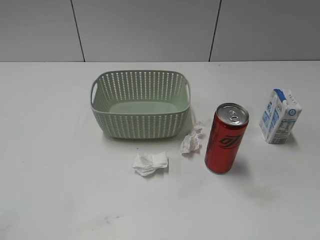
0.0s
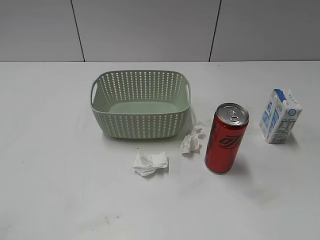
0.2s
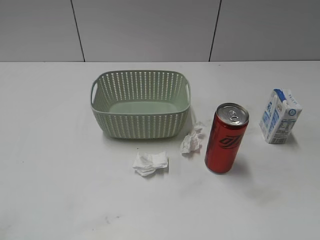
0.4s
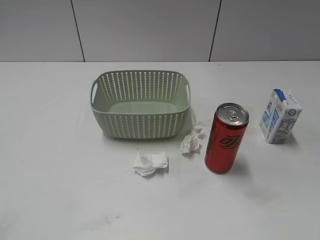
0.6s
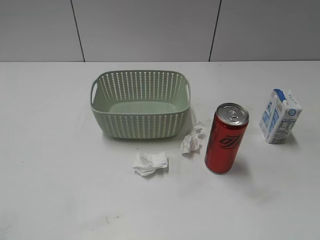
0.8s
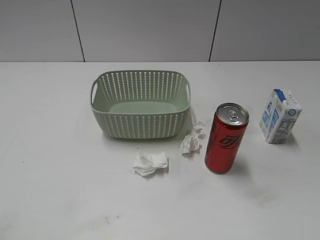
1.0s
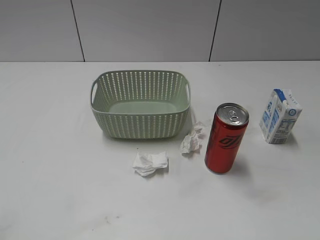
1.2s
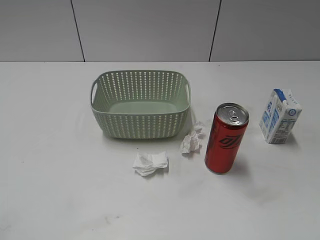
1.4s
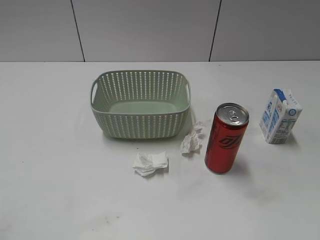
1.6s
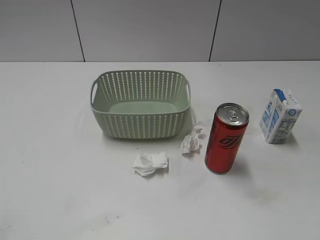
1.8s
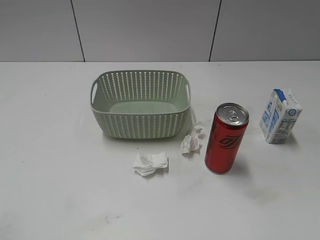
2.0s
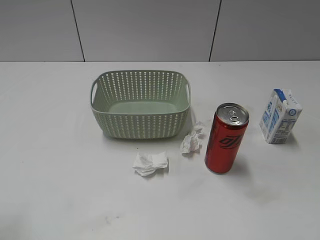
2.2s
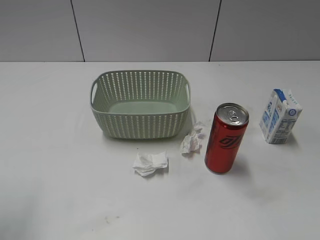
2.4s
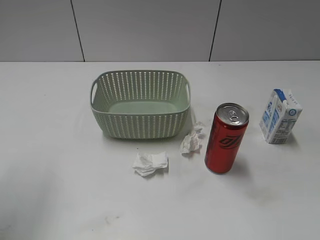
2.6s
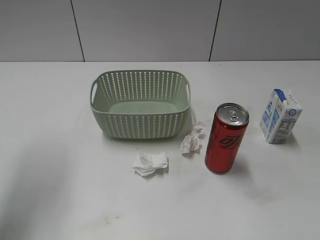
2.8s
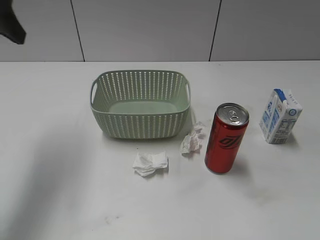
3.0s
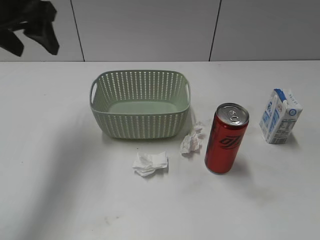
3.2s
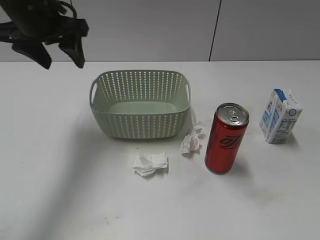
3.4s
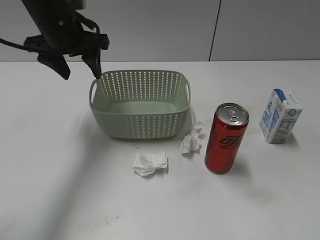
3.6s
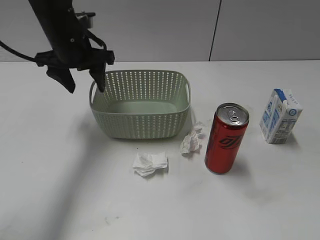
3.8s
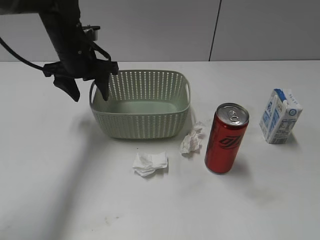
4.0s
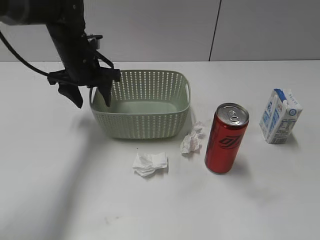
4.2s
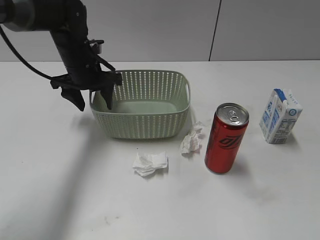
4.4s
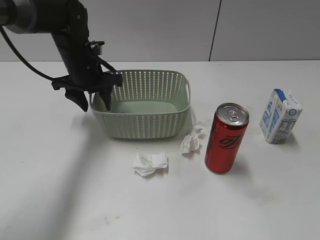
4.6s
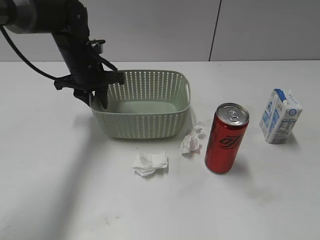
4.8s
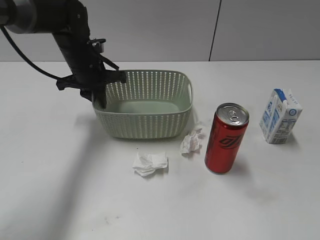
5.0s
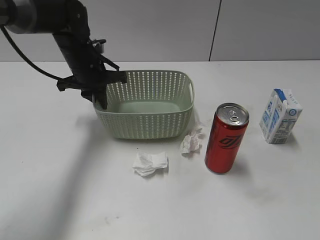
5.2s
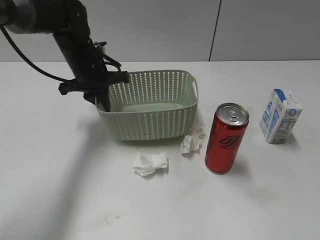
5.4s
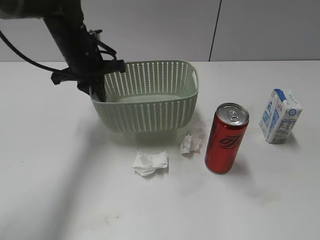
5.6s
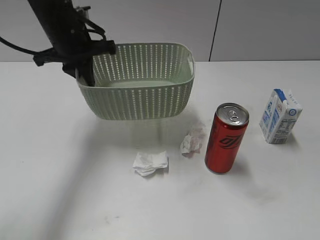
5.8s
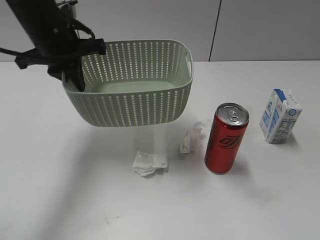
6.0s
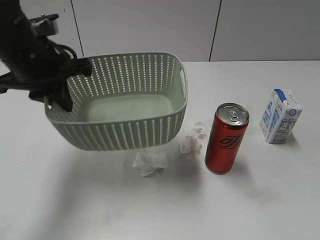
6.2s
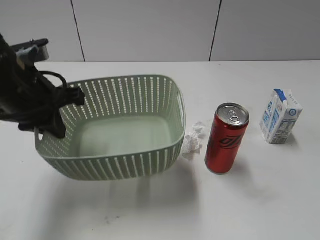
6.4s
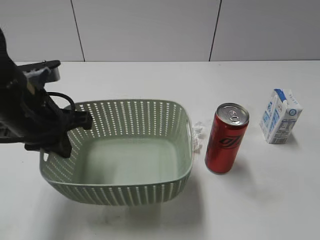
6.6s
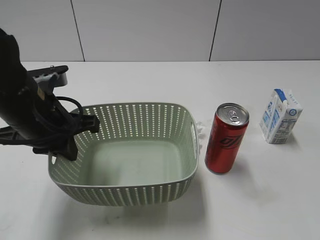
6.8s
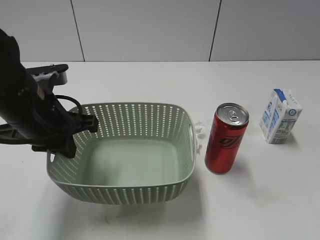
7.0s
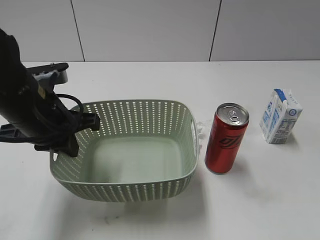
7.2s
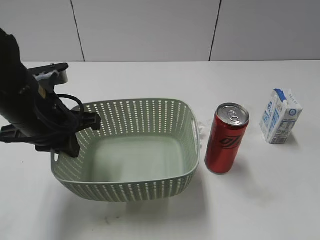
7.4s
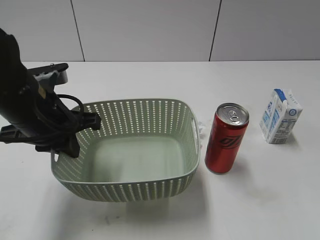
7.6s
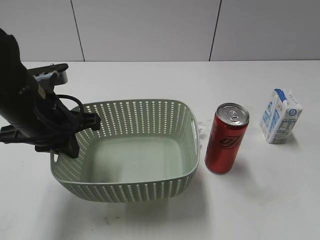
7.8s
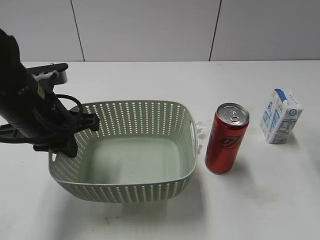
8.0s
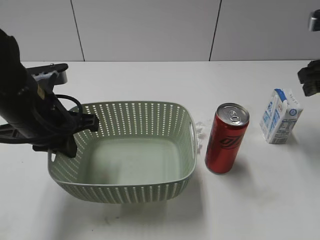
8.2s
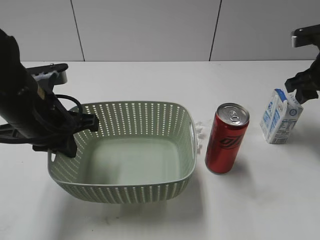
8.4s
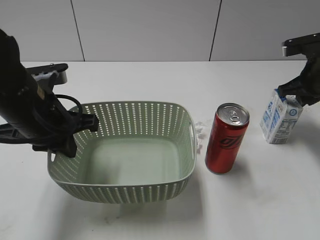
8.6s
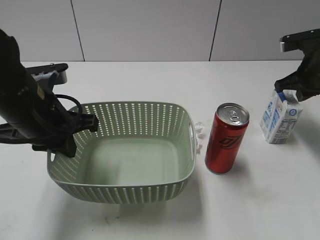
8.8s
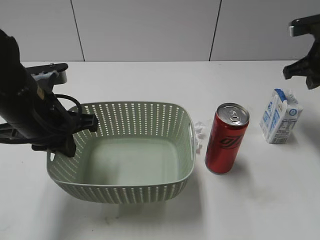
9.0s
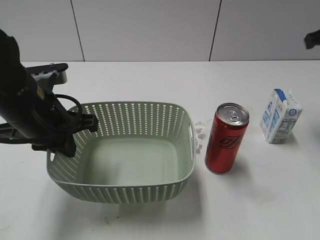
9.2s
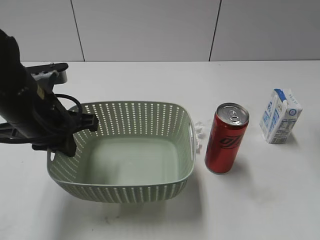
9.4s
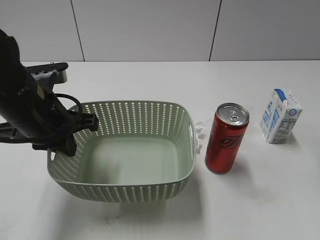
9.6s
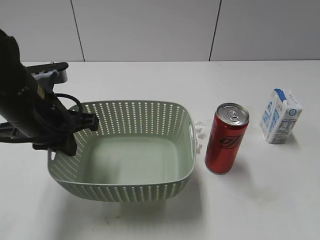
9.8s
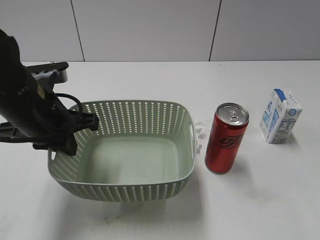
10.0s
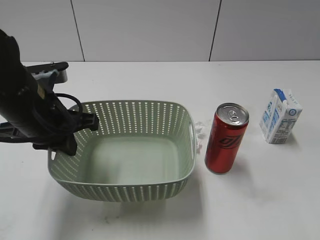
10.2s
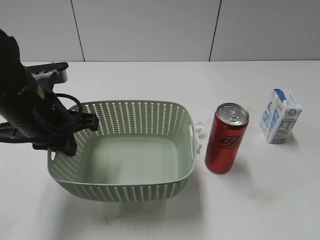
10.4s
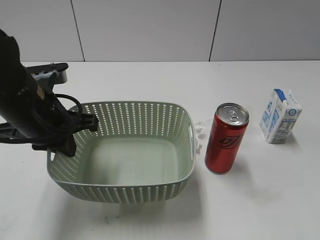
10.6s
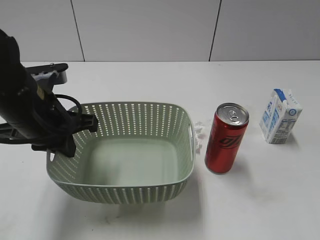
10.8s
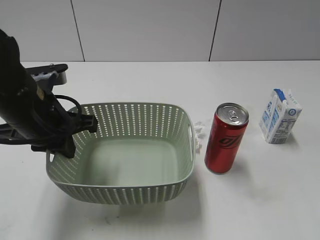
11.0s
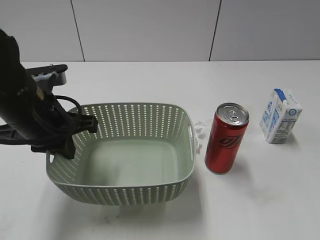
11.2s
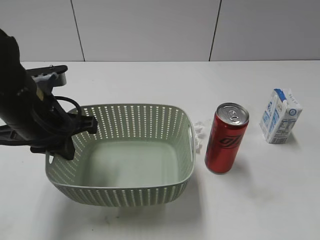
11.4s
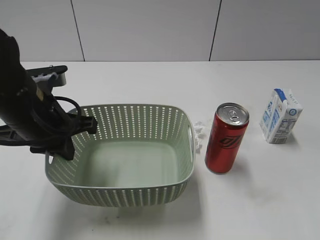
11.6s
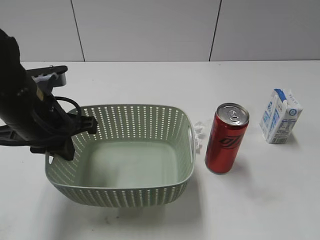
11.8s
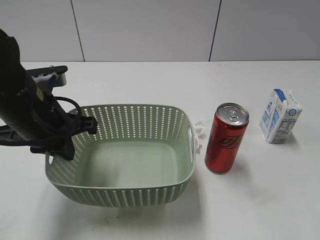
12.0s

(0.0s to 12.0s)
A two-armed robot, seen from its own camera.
Step, 3.0s - 5.2s: Grasp the basket with left gripper.
Step, 5.4s - 7.0s: Lift the basket with left gripper.
1.6s - 3.0s: The left gripper moves forward, roughly 30 cm.
3.0s - 4.4s: The left gripper moves downward, forward and to the right, about 25 cm.
4.4s - 6.0s: The left gripper heads upward and backward, covering approximately 10 cm, and closes its fingers.
6.0s - 7.6s: The right gripper travels forward and upward by some 15 cm, while the left gripper heads backward and downward, covering roughly 15 cm.
7.6s - 9.0s: The right gripper heads forward and downward, covering roughly 30 cm, and closes its fingers.
9.0s - 10.4s: The right gripper moves backward, roughly 35 cm, and opens up.
10.4s - 12.0s: The right gripper changes place by about 5 cm.

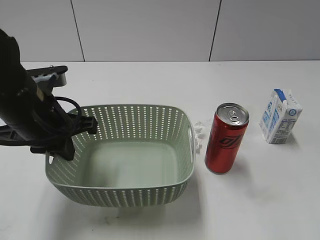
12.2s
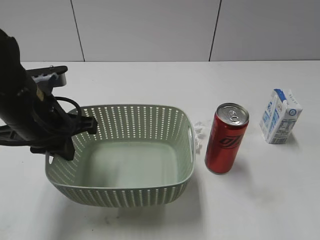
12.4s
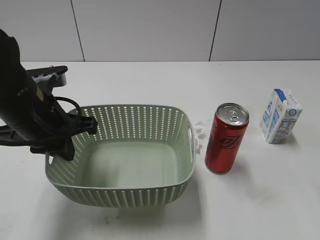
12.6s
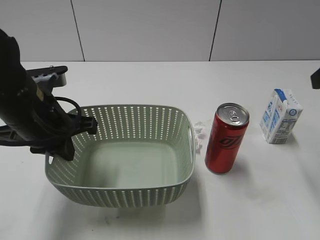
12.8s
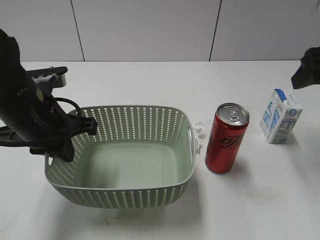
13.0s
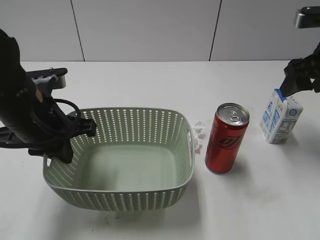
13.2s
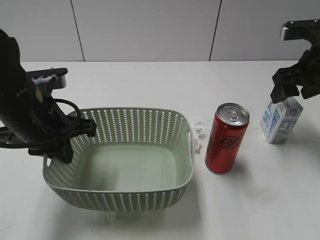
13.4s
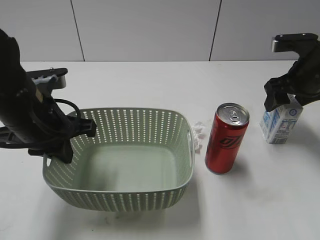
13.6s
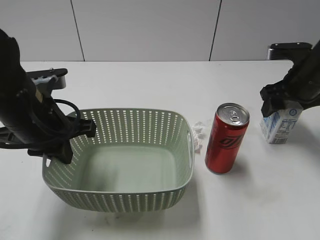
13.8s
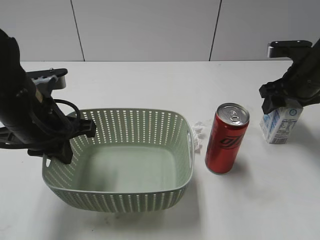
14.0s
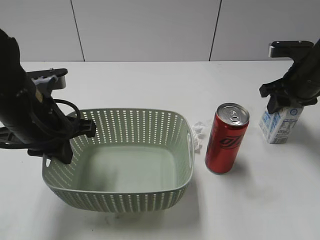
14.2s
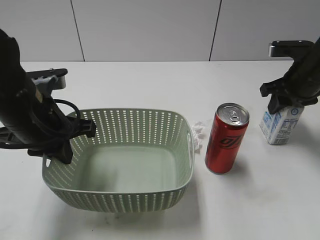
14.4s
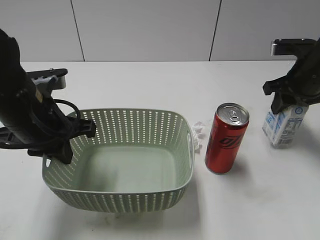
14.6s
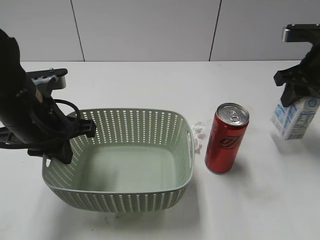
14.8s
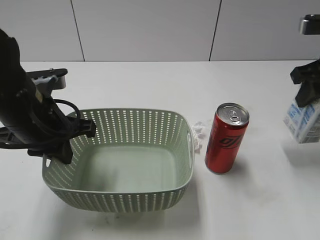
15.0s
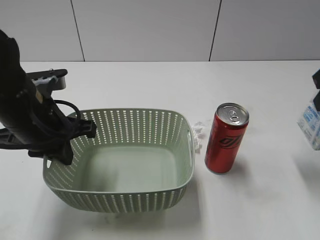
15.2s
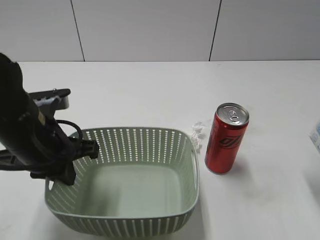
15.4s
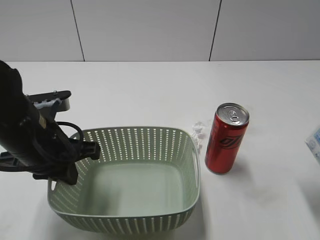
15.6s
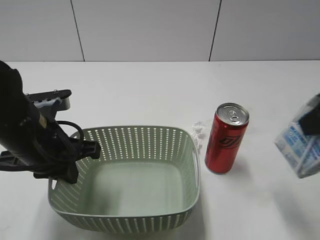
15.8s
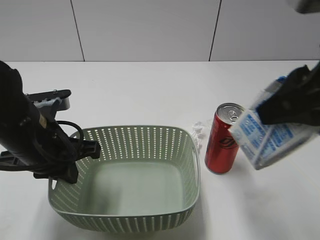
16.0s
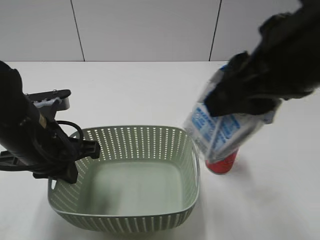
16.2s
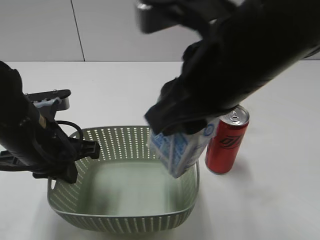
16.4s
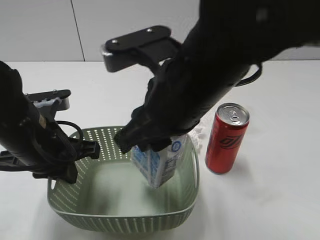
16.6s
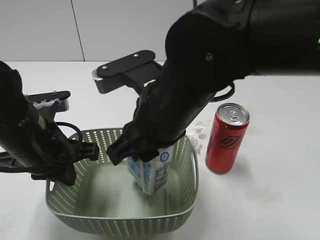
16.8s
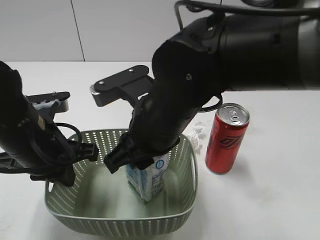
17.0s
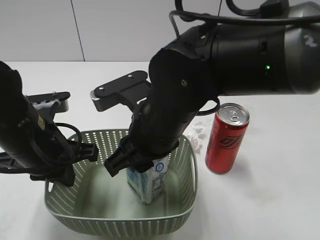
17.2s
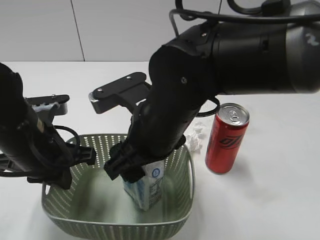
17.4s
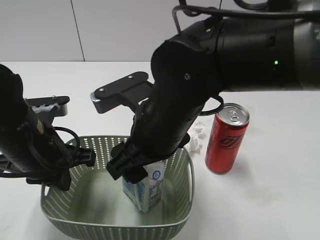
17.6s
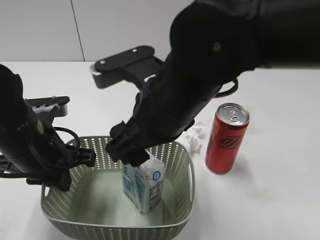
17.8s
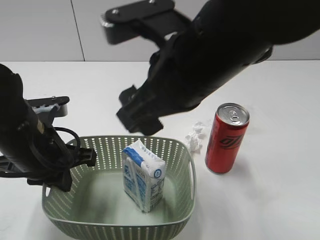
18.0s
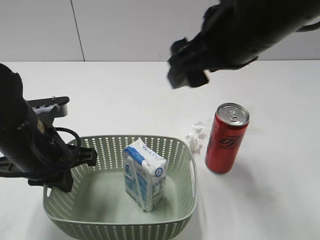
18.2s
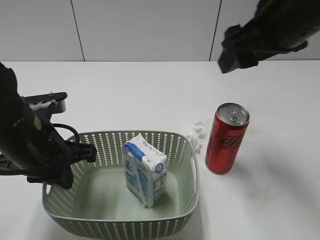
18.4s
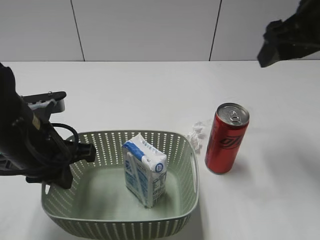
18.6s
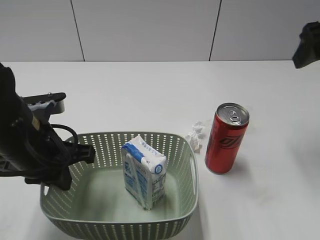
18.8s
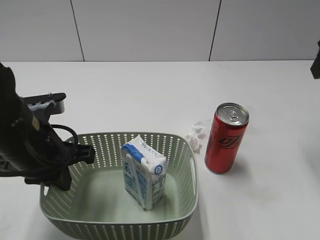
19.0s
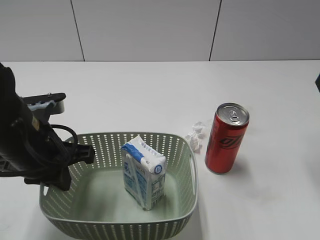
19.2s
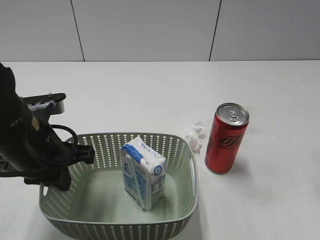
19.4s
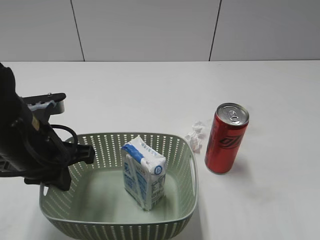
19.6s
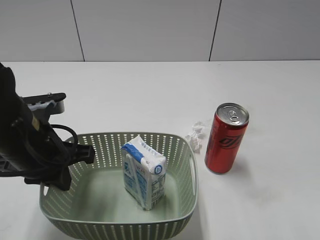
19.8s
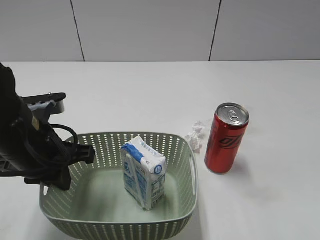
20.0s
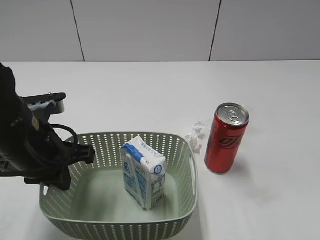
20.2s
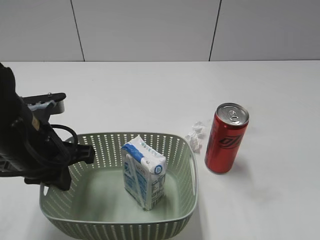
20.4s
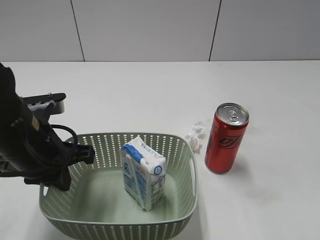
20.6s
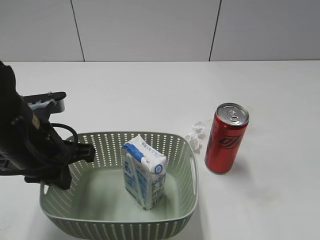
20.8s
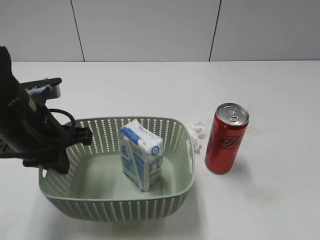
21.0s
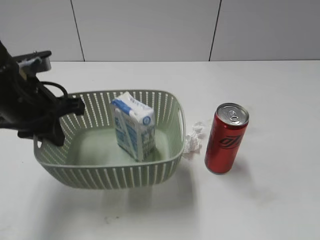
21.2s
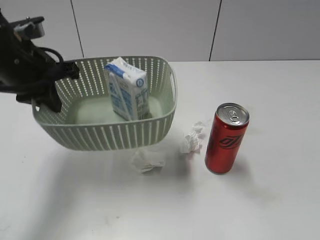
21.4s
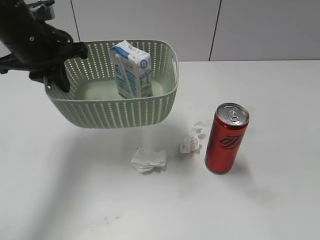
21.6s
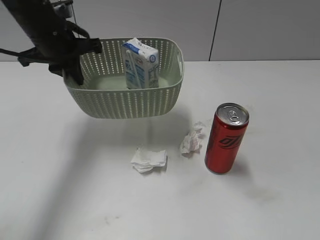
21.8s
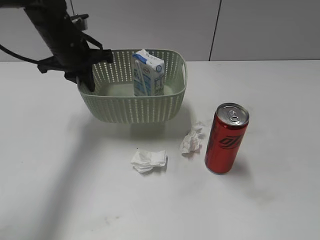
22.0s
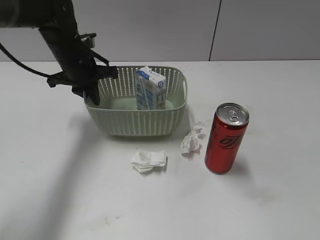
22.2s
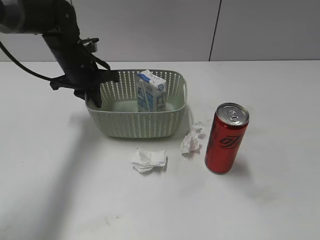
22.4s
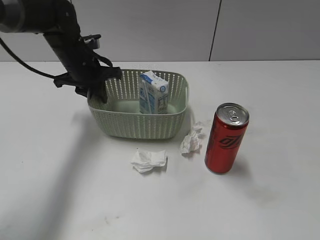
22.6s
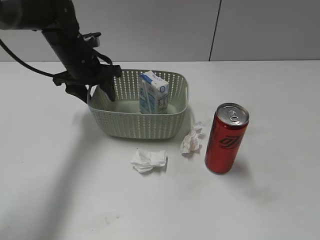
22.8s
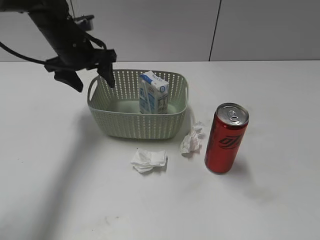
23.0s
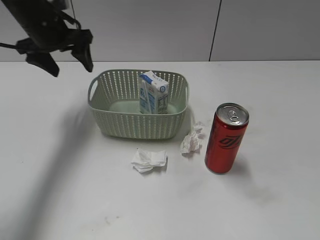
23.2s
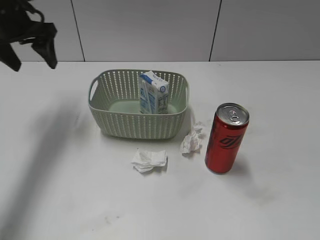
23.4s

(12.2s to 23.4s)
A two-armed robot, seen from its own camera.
Step, 12.2s - 14.2s: Grasp the milk with right gripper.
Step, 14.4s - 18.0s: Place the milk in the basket with right gripper.
Step, 18.2s - 22.8s: Place the basket on the table with left gripper.
12.2s - 13.8s: The right gripper is displaced forward and downward by roughly 35 cm.
13.8s - 15.4s: The right gripper goes roughly 20 cm backward and upward, and closes its fingers.
15.4s - 17.0s: The right gripper heads to the left, covering approximately 25 cm.
17.0s - 18.6s: The right gripper travels to the right, upward and forward by roughly 25 cm, and opens.
18.6s - 20.2s: The right gripper is displaced backward and to the right by about 25 cm.
20.2s - 21.8s: The right gripper is displaced backward by roughly 5 cm, while the left gripper travels forward by about 15 cm.
21.8s - 23.4s: The left gripper goes some 5 cm to the left, reaches about 10 cm downward, then returns, and opens its fingers.
